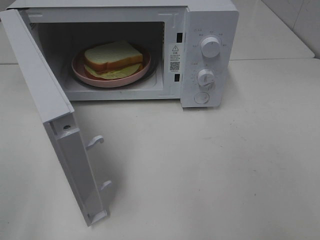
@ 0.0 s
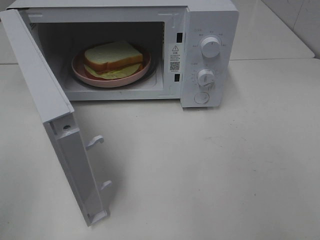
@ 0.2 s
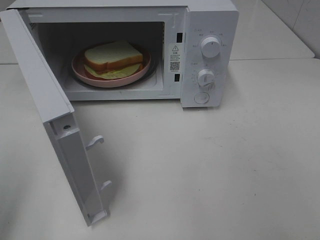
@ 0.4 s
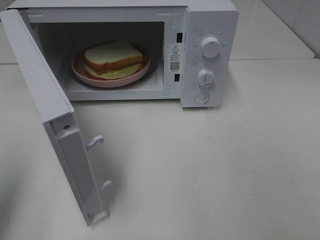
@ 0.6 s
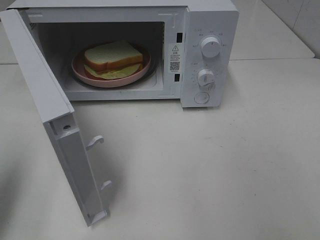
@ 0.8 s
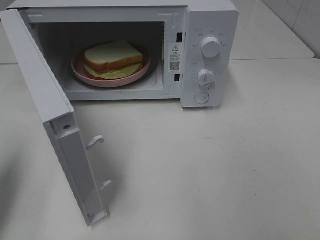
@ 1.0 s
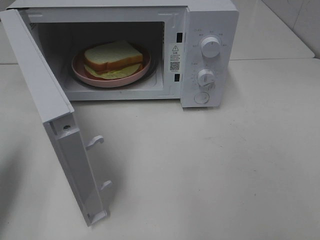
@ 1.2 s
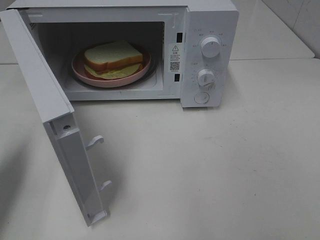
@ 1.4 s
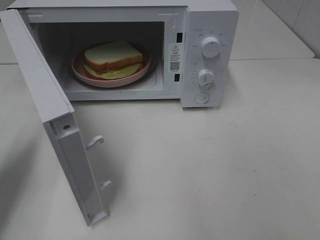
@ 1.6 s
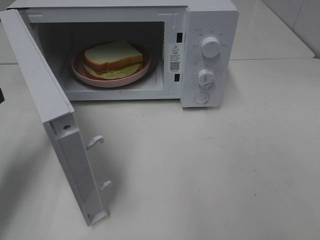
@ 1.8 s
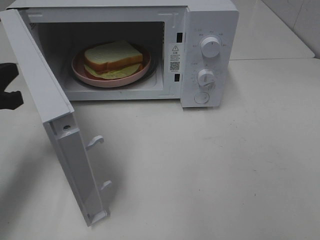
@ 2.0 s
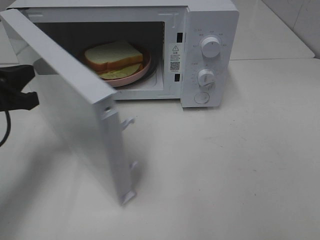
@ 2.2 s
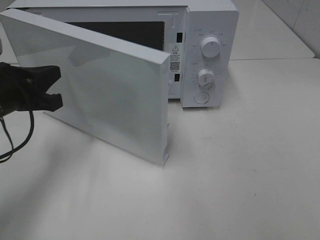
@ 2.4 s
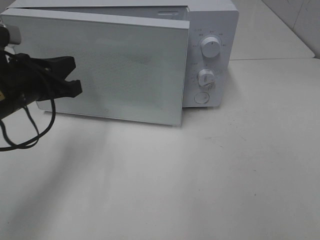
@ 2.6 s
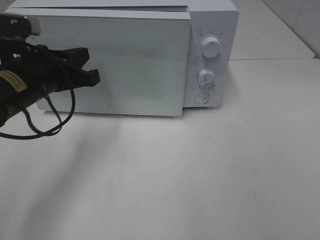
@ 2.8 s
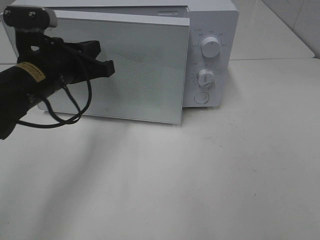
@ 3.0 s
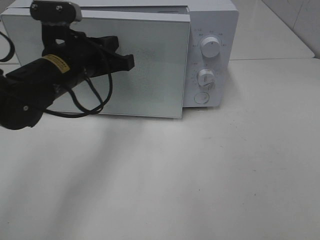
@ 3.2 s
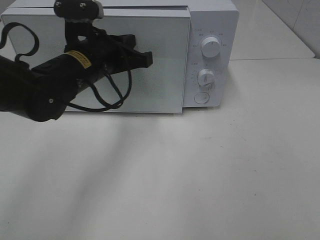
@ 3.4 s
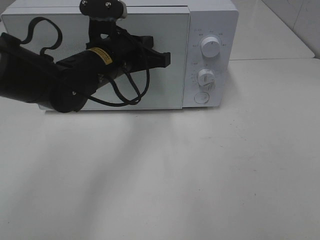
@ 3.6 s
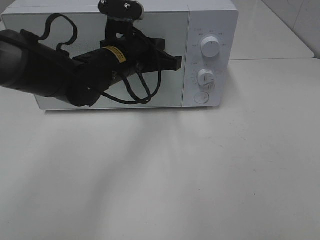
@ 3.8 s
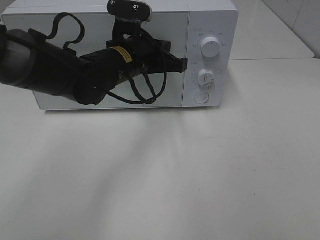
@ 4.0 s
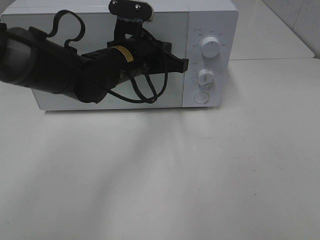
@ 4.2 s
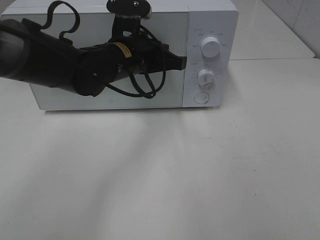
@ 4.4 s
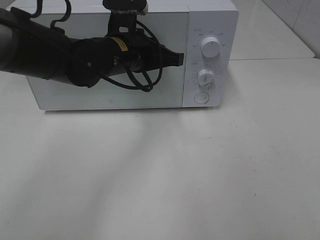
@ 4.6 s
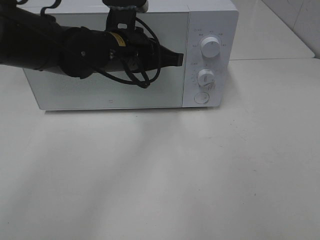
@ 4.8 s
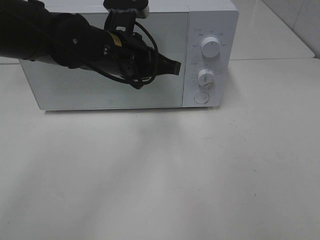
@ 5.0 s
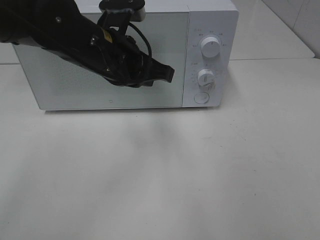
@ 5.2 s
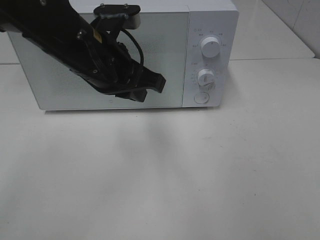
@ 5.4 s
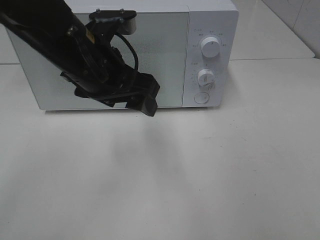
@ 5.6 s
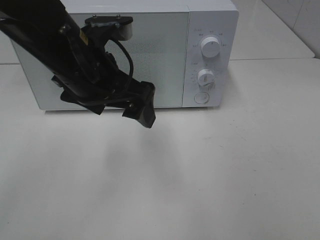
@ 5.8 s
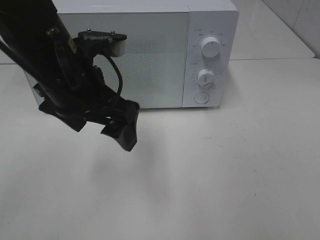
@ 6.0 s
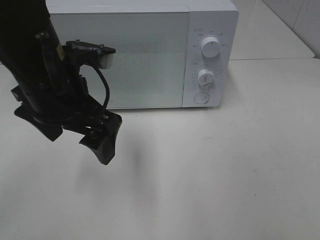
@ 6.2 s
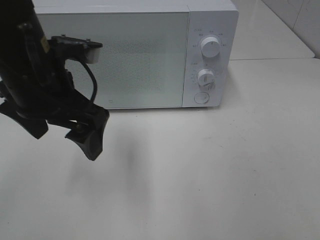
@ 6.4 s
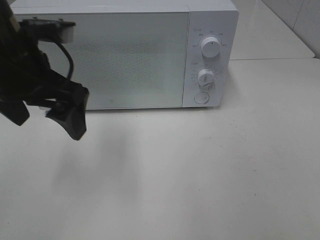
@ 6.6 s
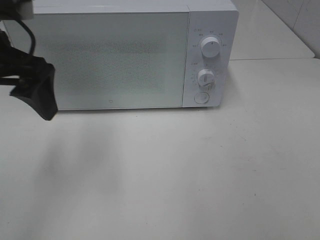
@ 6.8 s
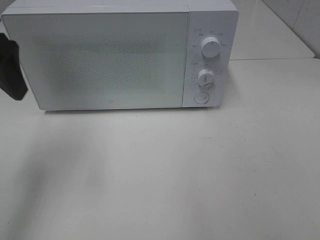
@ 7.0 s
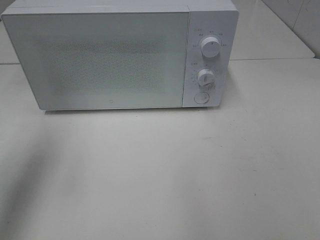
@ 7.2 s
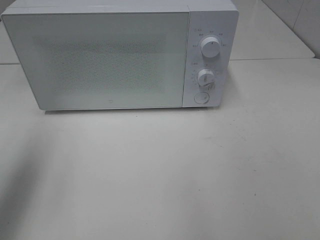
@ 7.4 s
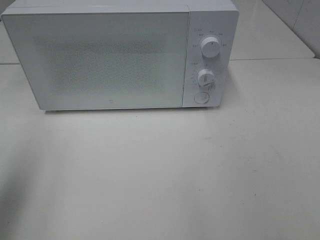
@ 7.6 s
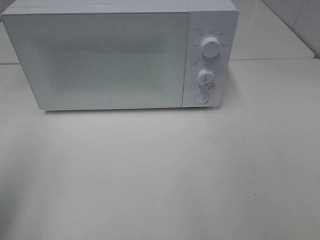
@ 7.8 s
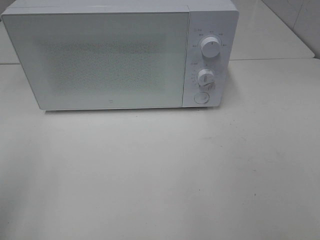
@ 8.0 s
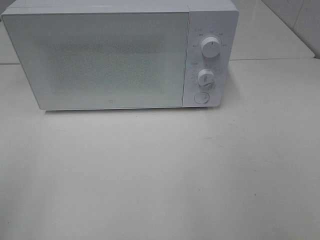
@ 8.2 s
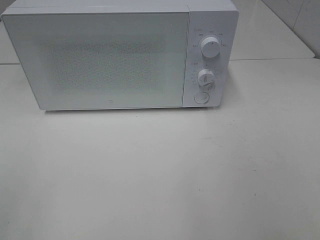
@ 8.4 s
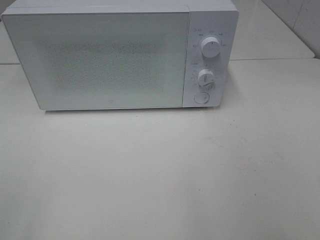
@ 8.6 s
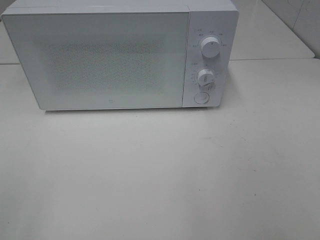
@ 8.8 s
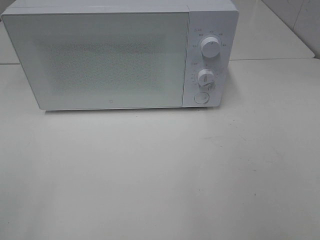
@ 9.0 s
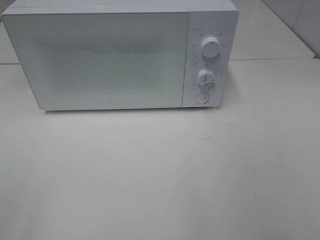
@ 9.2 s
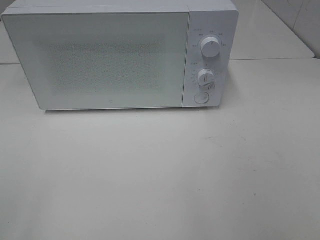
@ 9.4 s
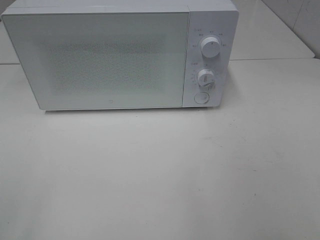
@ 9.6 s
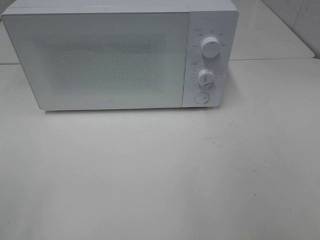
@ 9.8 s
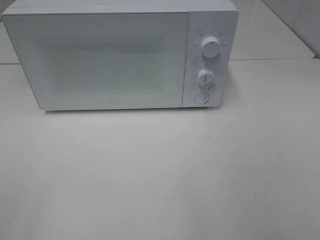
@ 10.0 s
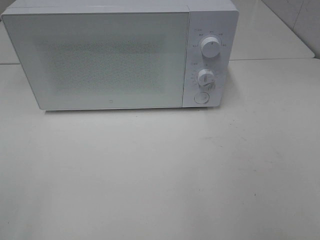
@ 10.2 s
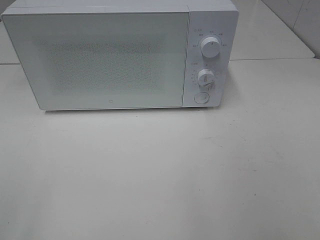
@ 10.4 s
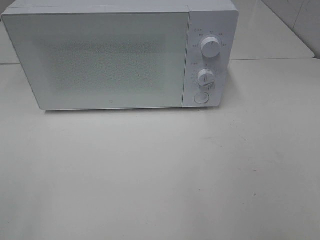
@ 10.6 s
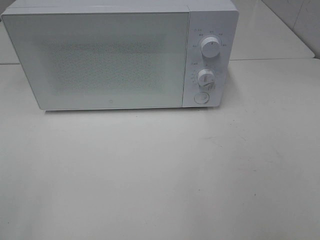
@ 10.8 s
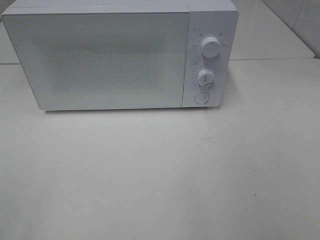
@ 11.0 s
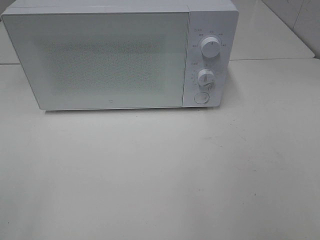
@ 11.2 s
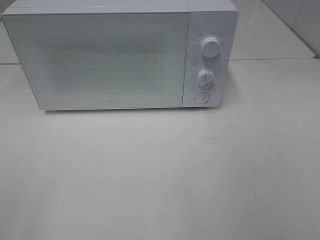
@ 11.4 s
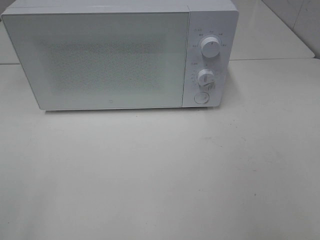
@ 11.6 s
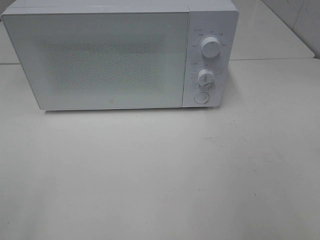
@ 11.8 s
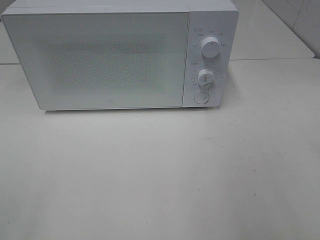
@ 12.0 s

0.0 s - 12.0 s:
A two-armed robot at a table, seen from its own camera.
Task of the whole recording: Heat Sandwich.
Step, 0.0 s - 4.8 s: Left hand: close the microwave door.
0.0 s - 1.6 s: The left gripper is displaced forward and downward by approximately 20 cm, and closes.
1.6 s - 3.0 s: The left gripper shifts approximately 15 cm to the right and forward.
3.0 s - 4.4 s: The left gripper is displaced to the right and forward by some 10 cm.
4.4 s - 6.0 s: The left gripper is displaced backward, to the left and upward by roughly 15 cm, and opens.
6.0 s - 7.6 s: The left gripper travels to the left and backward by roughly 20 cm.
7.6 s - 9.0 s: The left gripper moves backward, some 15 cm.

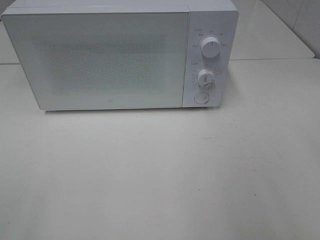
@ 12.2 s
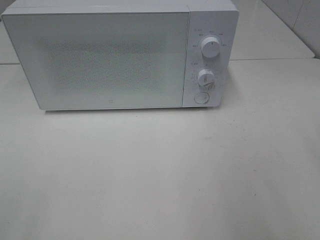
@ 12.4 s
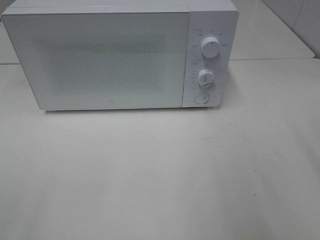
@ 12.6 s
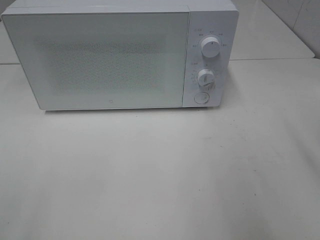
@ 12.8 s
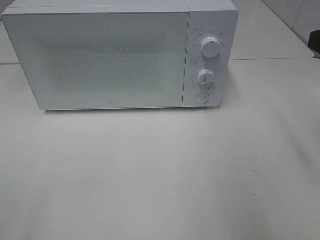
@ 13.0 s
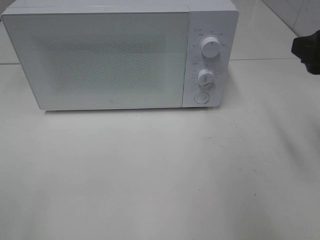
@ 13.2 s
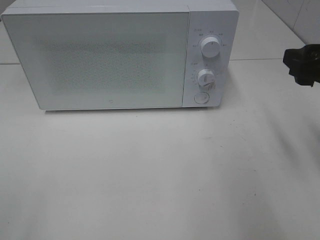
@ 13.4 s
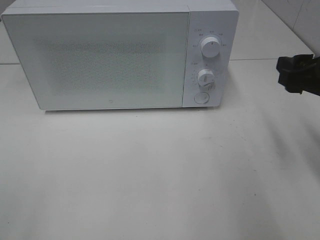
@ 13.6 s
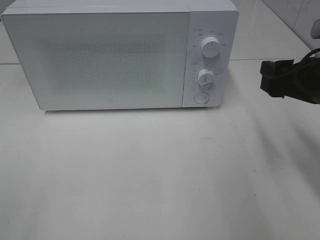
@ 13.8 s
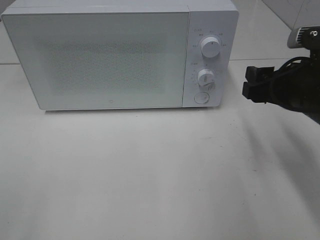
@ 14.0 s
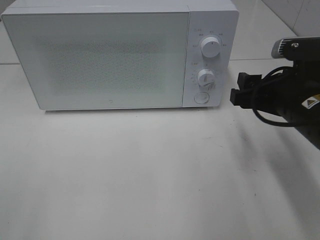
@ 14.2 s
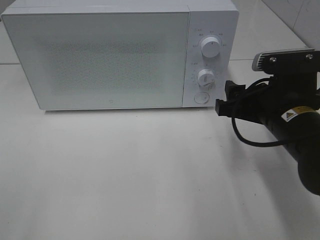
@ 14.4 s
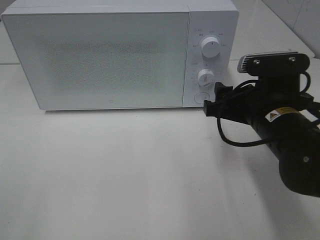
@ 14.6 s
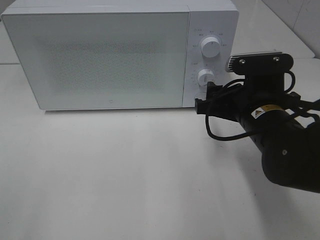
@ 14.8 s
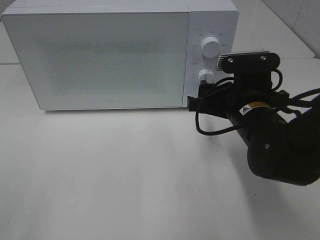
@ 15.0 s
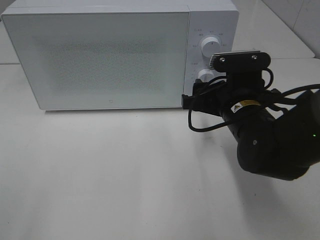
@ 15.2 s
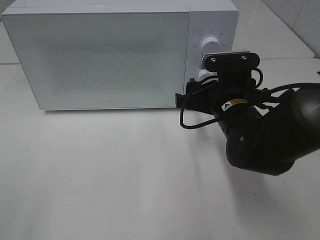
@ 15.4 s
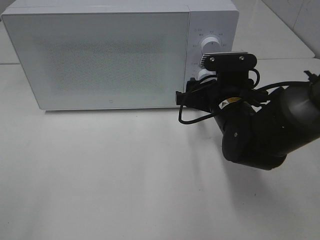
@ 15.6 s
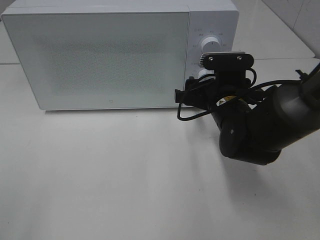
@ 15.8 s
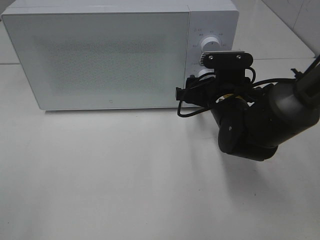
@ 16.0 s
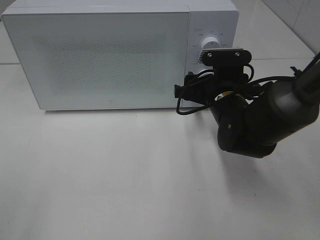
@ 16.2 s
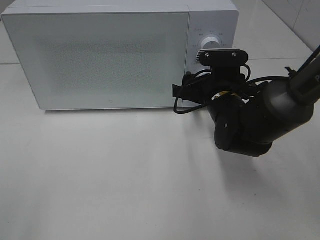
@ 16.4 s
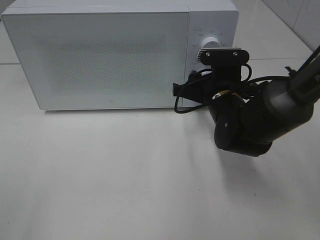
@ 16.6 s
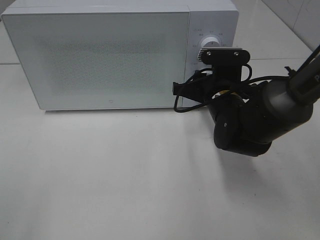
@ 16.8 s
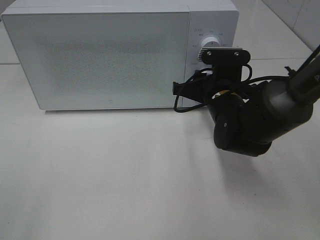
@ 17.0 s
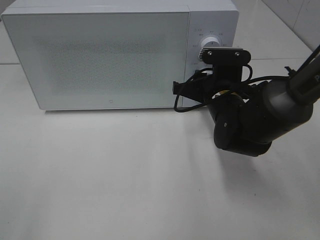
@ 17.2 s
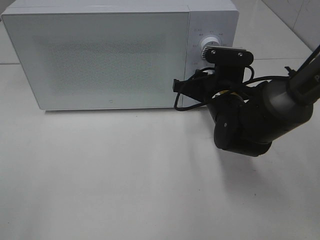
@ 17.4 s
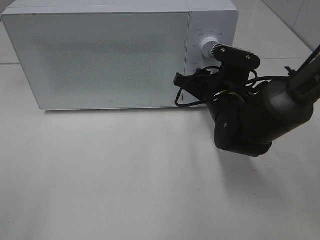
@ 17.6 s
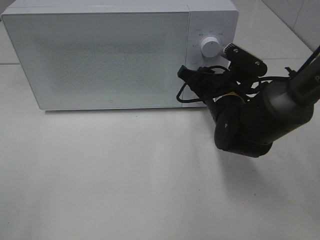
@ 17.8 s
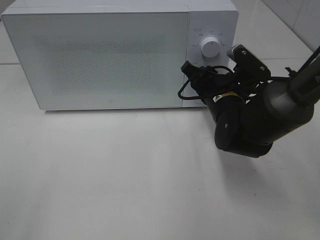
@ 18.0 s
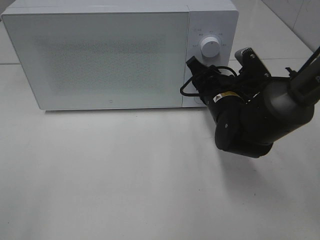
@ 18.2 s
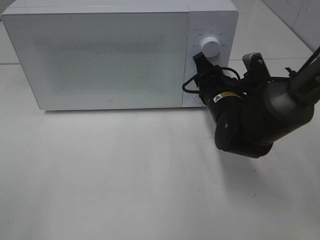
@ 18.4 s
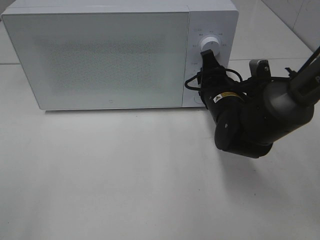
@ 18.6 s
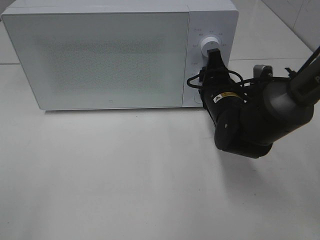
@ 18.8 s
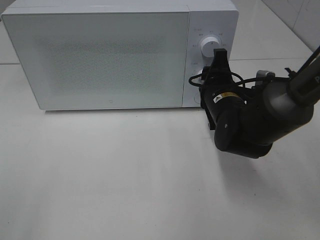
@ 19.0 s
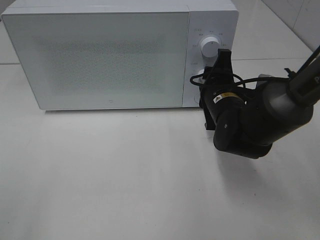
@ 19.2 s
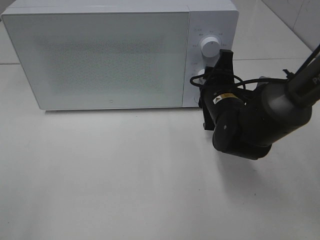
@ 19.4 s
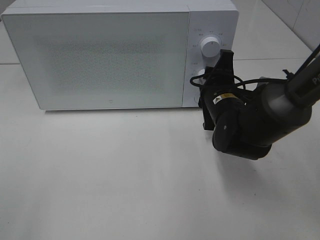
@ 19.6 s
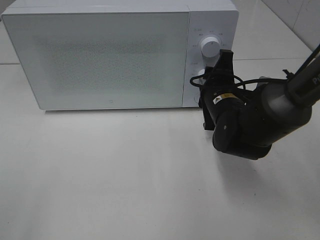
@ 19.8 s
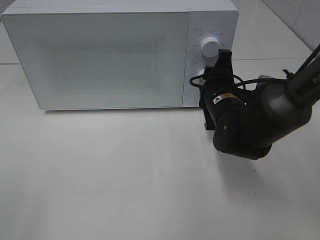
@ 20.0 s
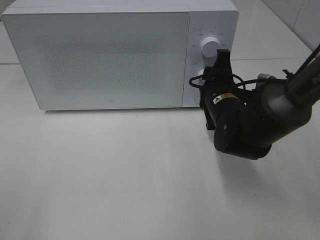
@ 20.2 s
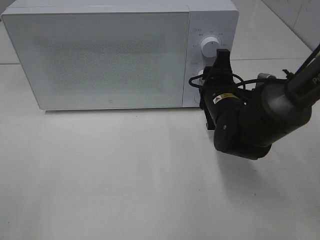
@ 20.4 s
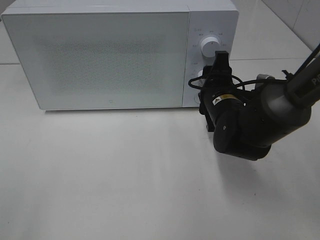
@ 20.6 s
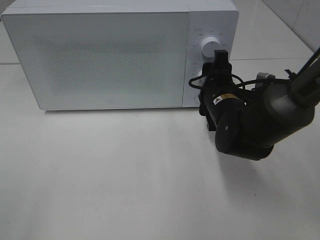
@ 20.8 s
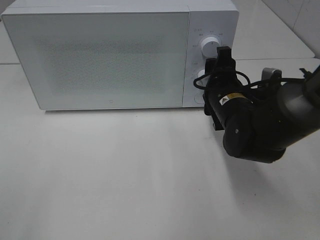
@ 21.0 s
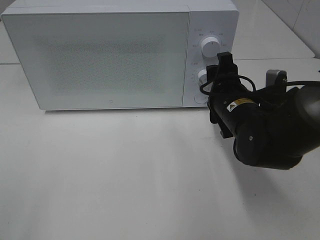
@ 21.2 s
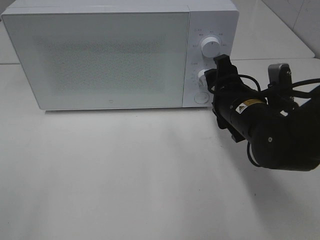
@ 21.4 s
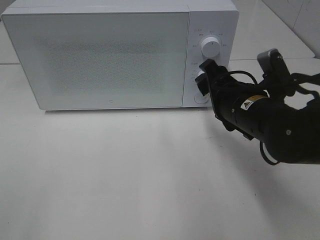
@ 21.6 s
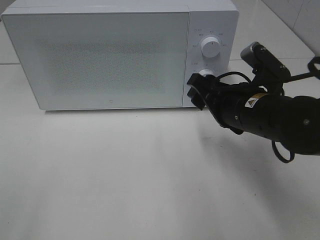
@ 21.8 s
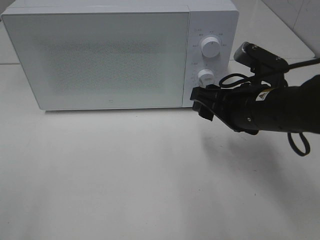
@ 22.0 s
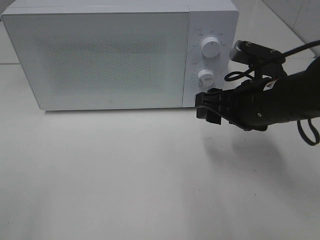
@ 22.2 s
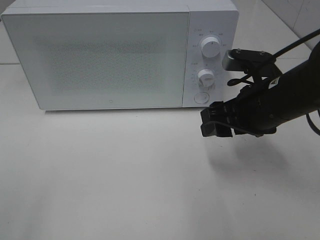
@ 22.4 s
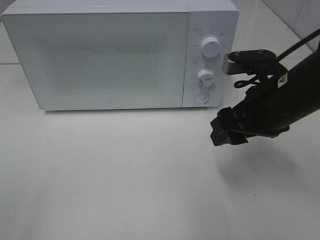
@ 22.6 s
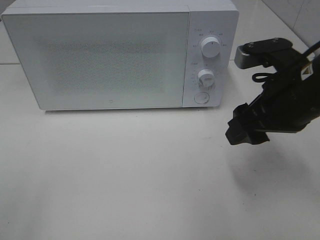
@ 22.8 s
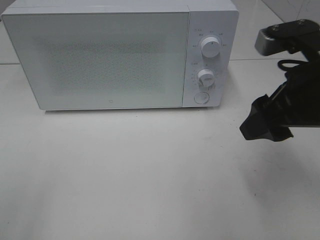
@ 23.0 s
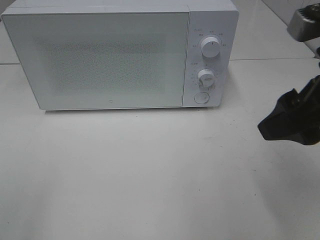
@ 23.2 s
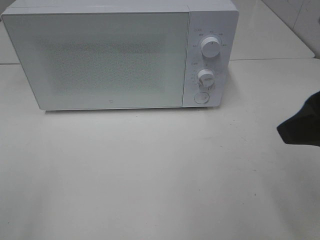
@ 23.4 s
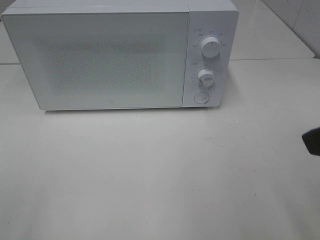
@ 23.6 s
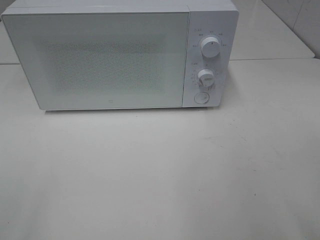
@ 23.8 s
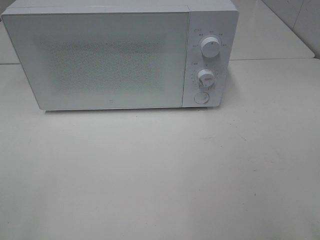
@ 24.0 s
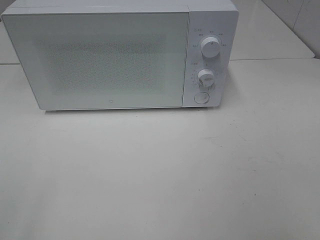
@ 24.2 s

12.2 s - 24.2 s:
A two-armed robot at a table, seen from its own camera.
Task of the whole recording: Heat Sandwich.
Step, 12.2 s - 21.6 s: Right hand: twist timer button.
12.2 s - 13.8 s: The right gripper moves forward and downward, approximately 20 cm.
13.8 s - 15.2 s: The right gripper travels to the left and downward by some 10 cm.
15.2 s - 16.6 s: The right gripper moves forward, about 5 cm.
19.8 s - 21.2 s: The grippers move only a little.
21.2 s - 22.6 s: The right gripper heads upward, covering roughly 5 cm.
22.6 s - 24.2 s: The right gripper shifts about 25 cm backward, to the right and upward.
